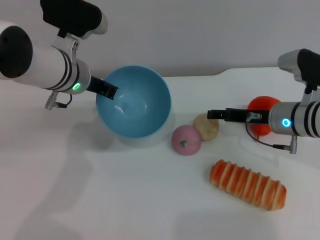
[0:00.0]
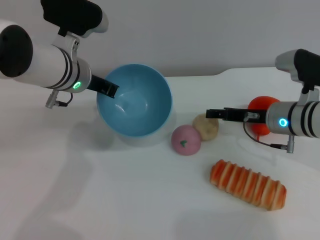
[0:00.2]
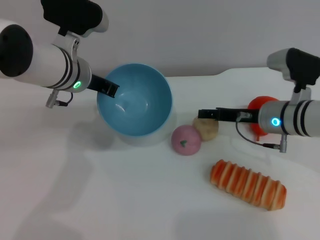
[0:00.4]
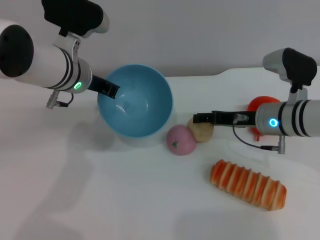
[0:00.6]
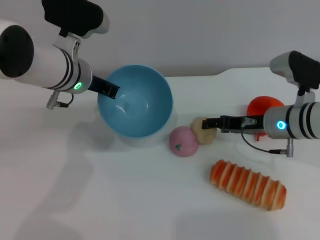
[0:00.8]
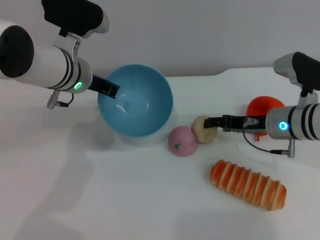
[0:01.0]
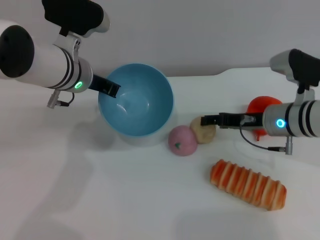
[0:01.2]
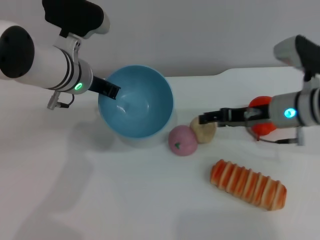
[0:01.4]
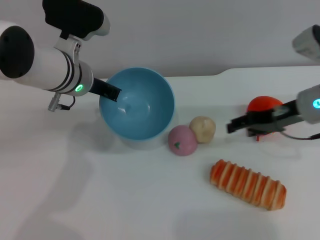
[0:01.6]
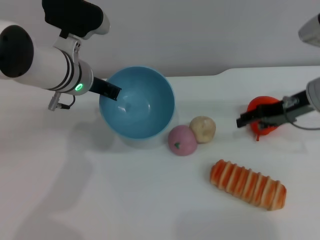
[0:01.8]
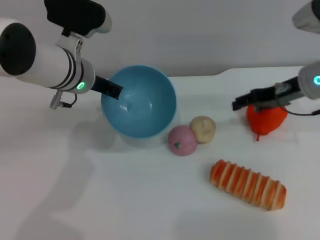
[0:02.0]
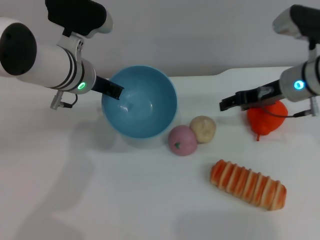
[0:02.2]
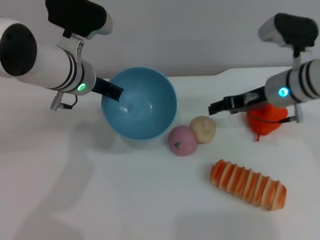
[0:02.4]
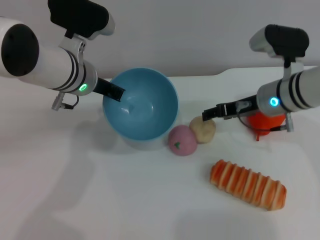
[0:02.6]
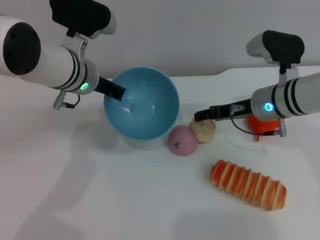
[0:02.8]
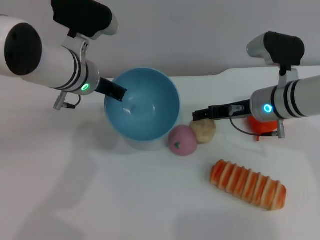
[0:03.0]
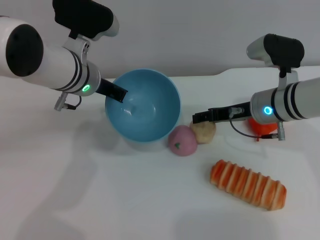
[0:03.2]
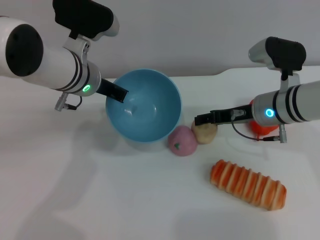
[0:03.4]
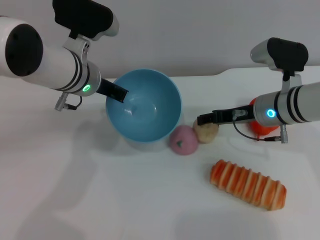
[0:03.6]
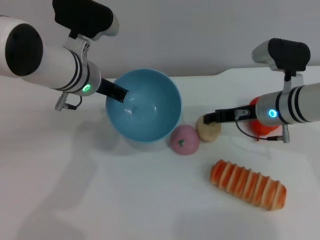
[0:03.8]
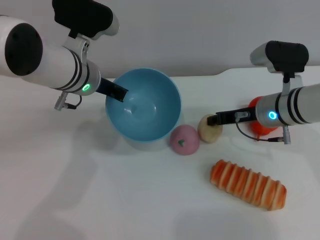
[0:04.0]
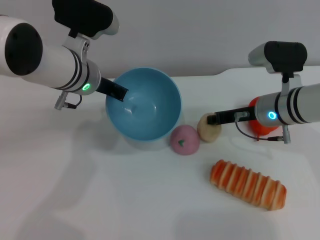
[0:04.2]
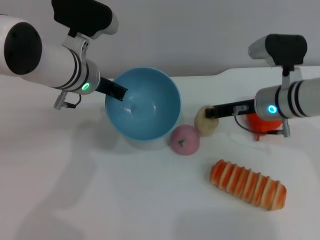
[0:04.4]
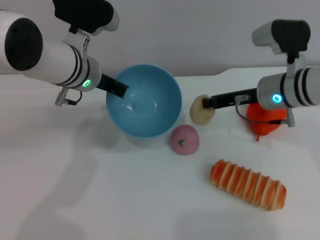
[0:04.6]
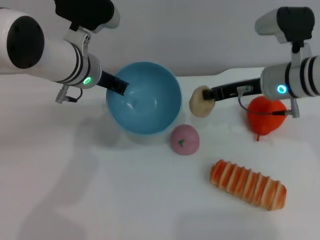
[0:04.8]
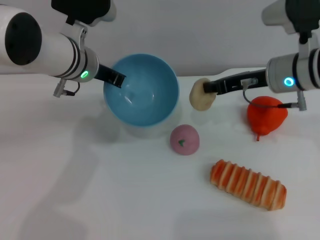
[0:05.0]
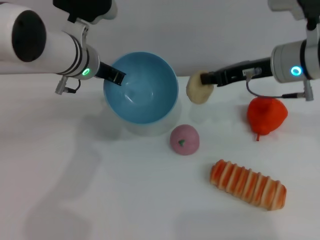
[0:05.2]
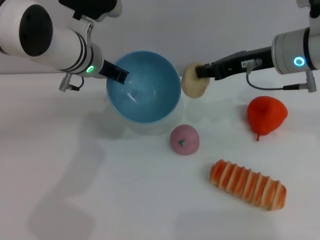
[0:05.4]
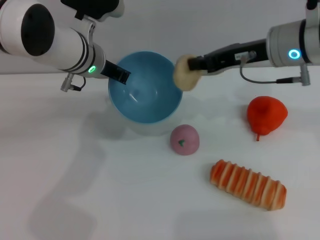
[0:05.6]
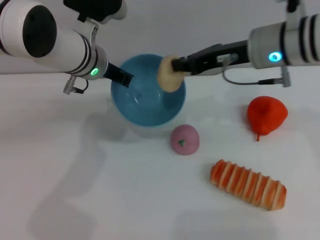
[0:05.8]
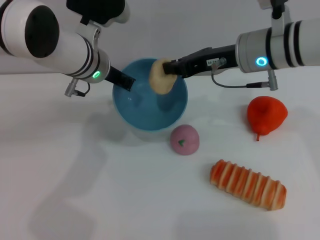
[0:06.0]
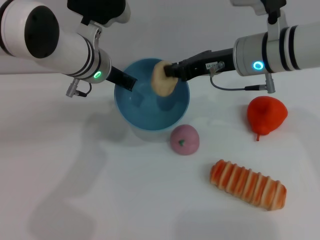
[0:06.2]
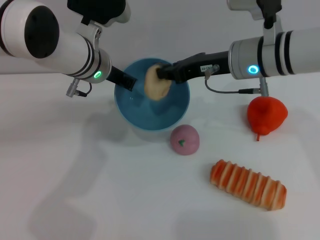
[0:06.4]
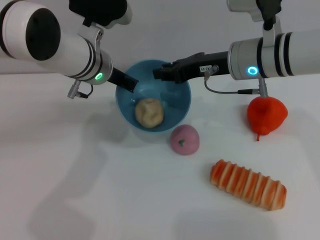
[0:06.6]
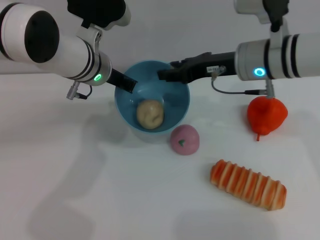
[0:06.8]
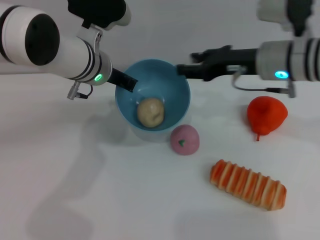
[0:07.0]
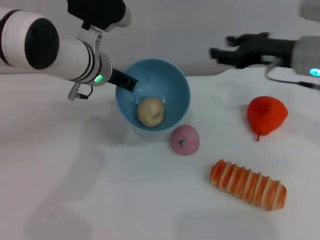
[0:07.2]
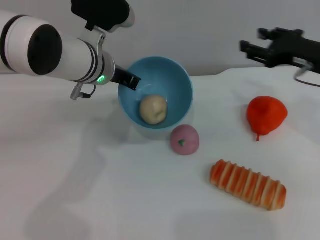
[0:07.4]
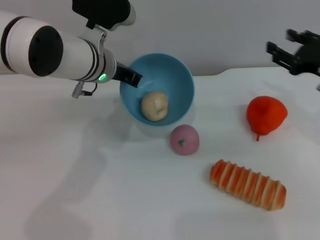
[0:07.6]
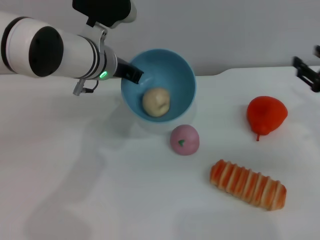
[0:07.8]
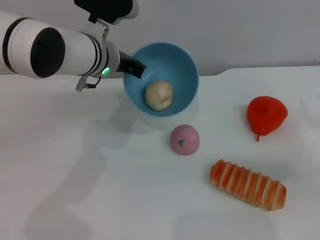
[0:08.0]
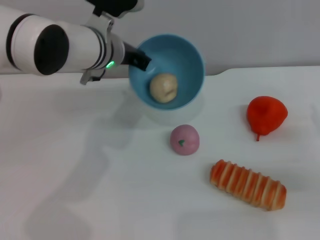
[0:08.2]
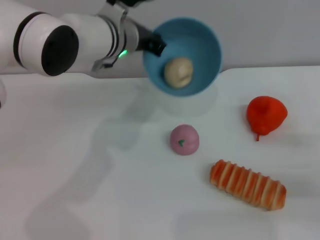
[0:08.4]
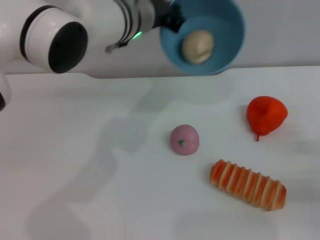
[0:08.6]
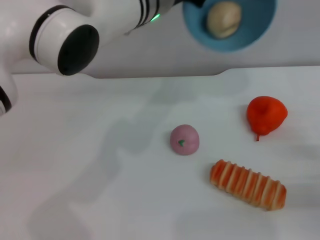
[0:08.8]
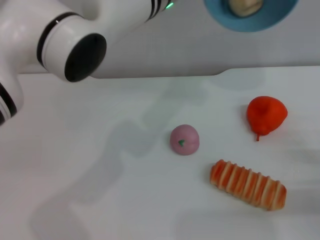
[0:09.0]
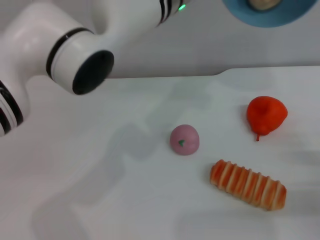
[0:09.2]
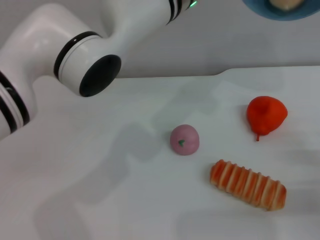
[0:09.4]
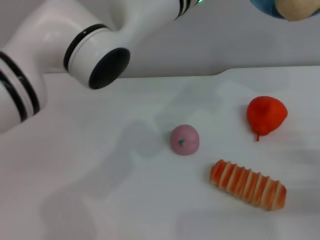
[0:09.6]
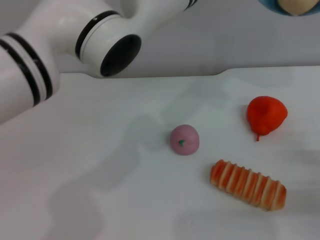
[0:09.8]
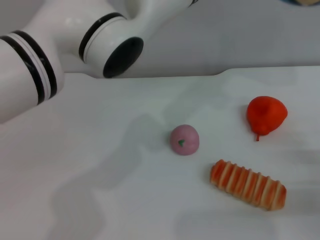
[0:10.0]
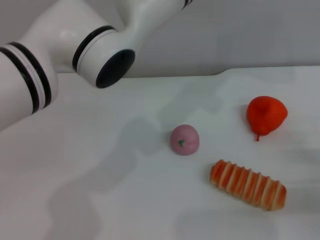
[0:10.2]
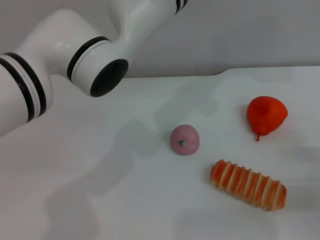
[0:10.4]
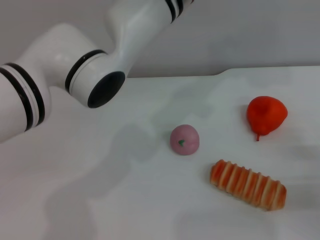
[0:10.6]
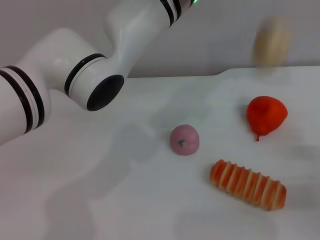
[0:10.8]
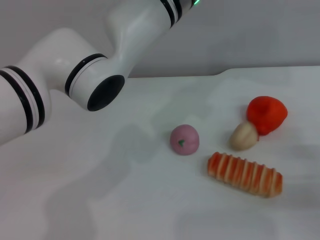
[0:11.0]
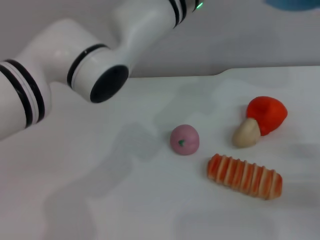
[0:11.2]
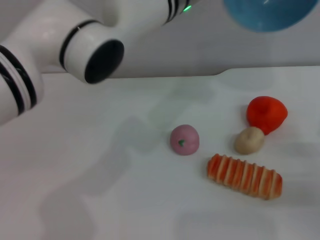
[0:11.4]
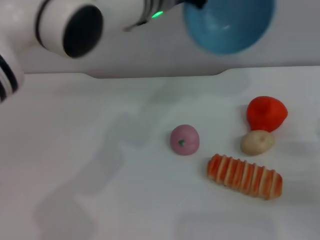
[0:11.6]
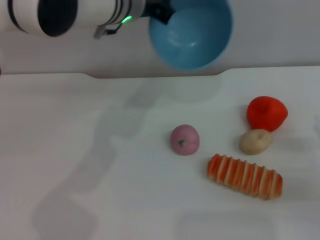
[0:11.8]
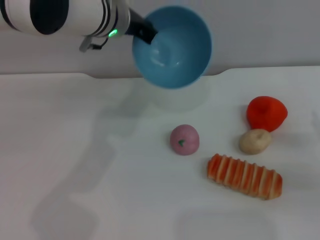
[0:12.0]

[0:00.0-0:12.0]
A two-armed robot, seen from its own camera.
Task of the whole recording: put the egg yolk pastry into the blue bowl and pour it out repeatedly.
Step, 0:00.0 to 0:04.8: Pick up the egg yolk pastry with the right gripper.
Step, 0:05.0 to 0:06.8: Place the egg yolk pastry into the bowl.
0:00.0 to 0:01.6: The right gripper moves upward, approximately 5 cm.
0:01.6 to 0:03.0: The right gripper heads to the left, covering about 5 cm.
0:03.0 to 0:04.4: The right gripper closes.
0:04.4 to 0:06.0: The right gripper travels upward by roughly 10 cm.
0:06.0 to 0:07.6: The right gripper is displaced to the right by about 15 cm, and opens up.
0:07.6 to 0:09.0: The left gripper moves upward and to the right, some 15 cm; the right gripper travels backward, downward and to the right by approximately 15 cm.
0:10.4 to 0:12.0: The left gripper travels to the left by some 10 cm.

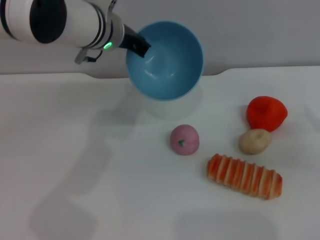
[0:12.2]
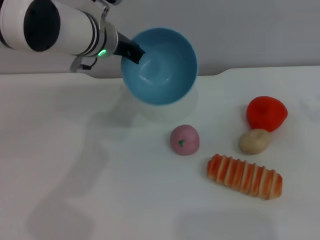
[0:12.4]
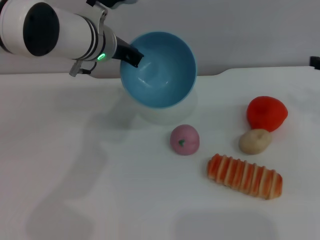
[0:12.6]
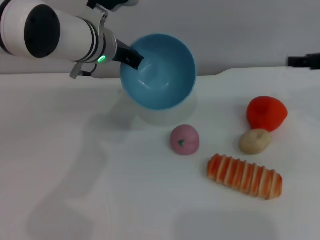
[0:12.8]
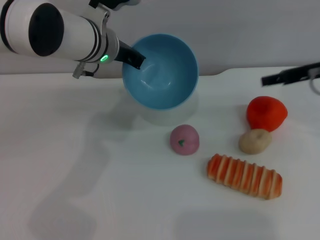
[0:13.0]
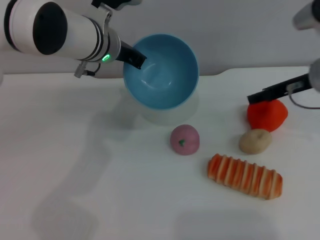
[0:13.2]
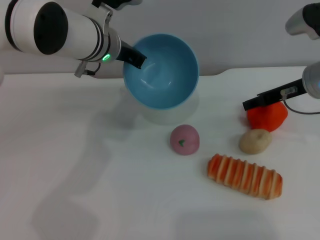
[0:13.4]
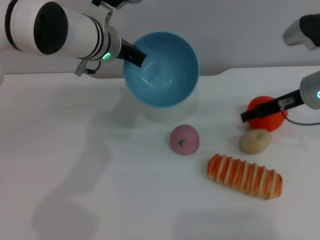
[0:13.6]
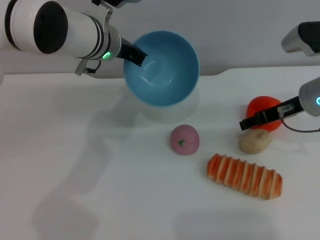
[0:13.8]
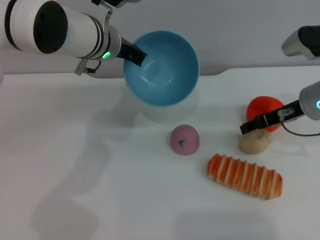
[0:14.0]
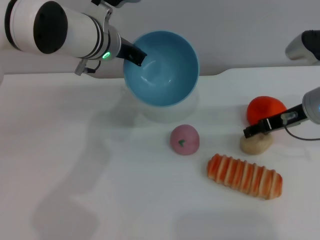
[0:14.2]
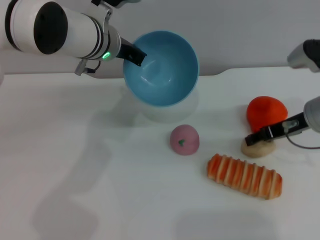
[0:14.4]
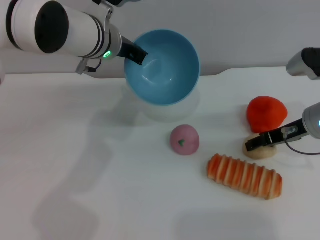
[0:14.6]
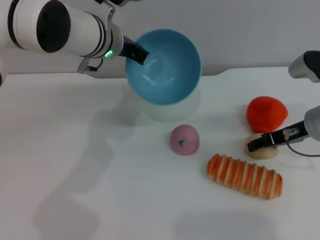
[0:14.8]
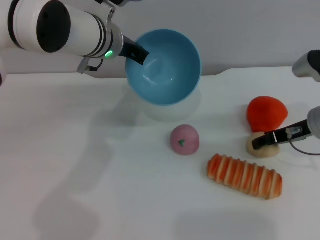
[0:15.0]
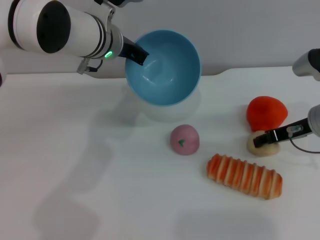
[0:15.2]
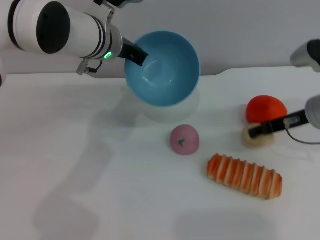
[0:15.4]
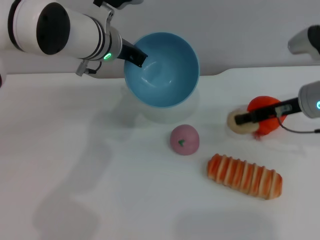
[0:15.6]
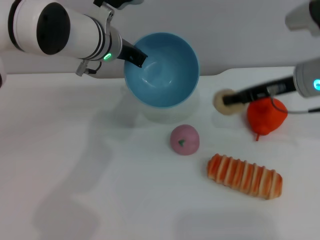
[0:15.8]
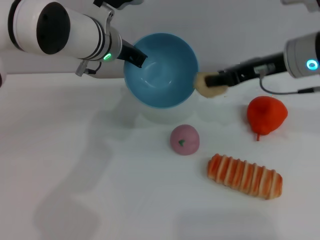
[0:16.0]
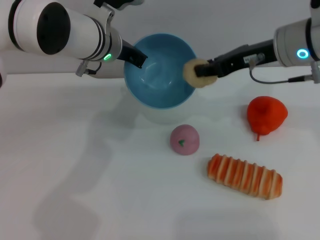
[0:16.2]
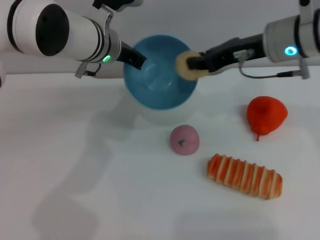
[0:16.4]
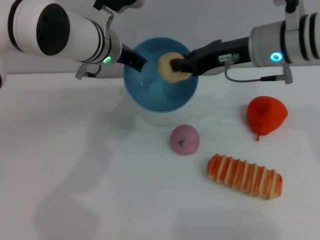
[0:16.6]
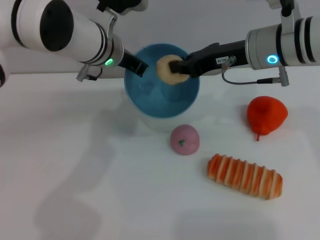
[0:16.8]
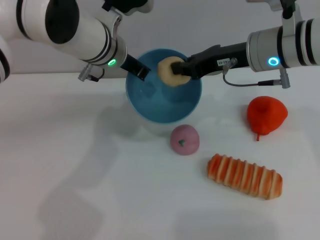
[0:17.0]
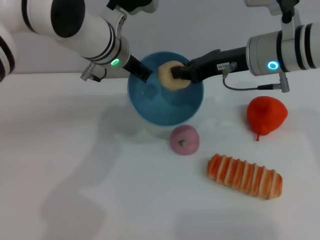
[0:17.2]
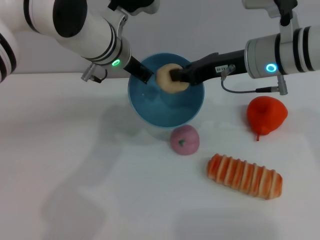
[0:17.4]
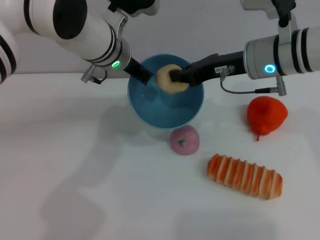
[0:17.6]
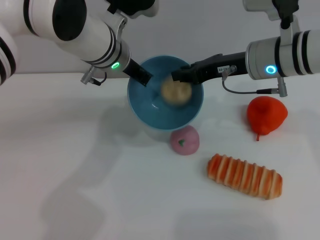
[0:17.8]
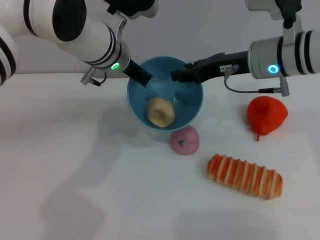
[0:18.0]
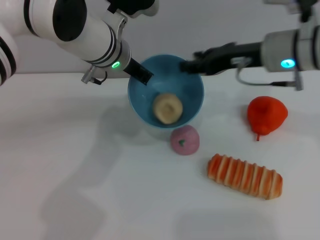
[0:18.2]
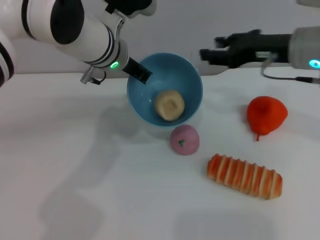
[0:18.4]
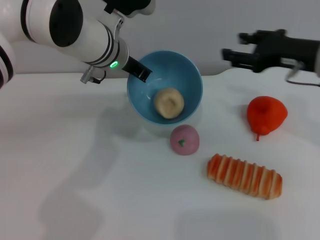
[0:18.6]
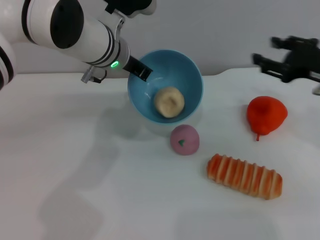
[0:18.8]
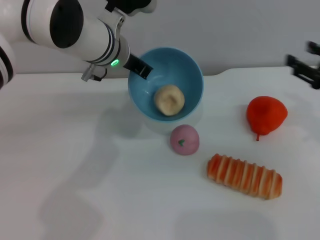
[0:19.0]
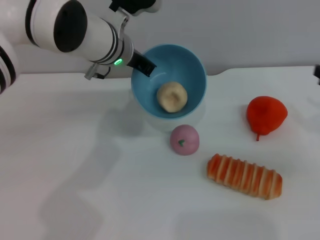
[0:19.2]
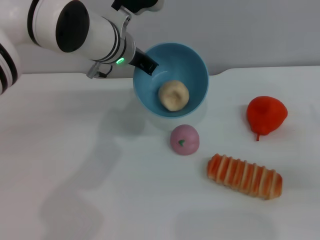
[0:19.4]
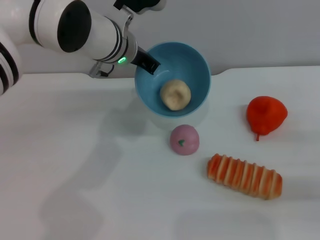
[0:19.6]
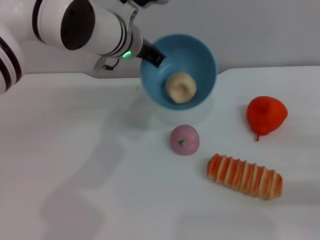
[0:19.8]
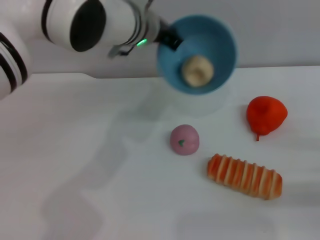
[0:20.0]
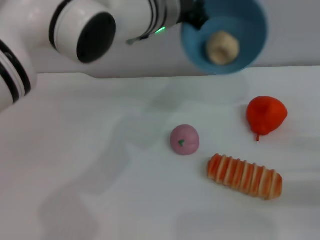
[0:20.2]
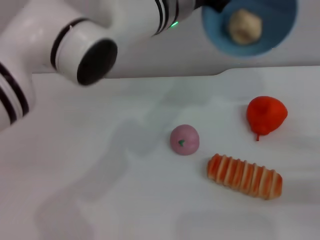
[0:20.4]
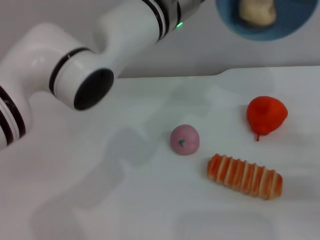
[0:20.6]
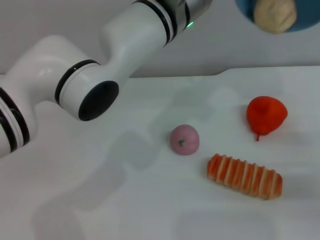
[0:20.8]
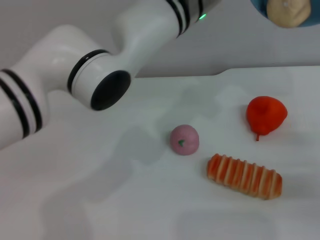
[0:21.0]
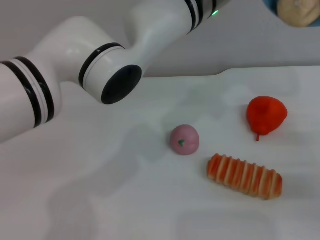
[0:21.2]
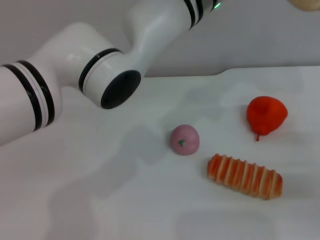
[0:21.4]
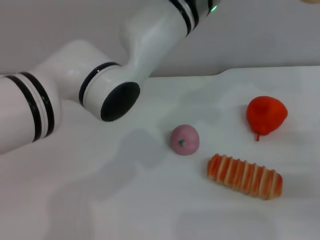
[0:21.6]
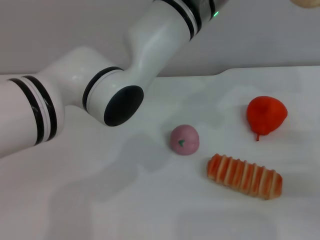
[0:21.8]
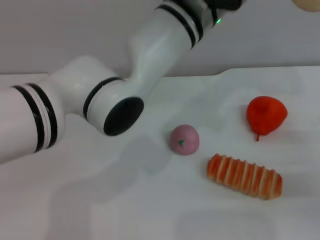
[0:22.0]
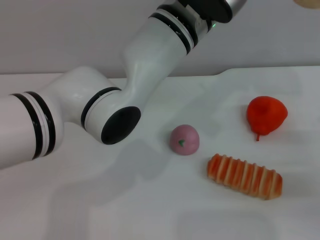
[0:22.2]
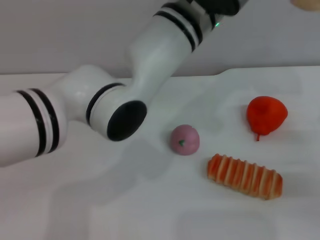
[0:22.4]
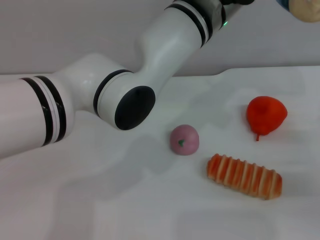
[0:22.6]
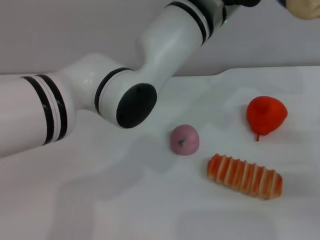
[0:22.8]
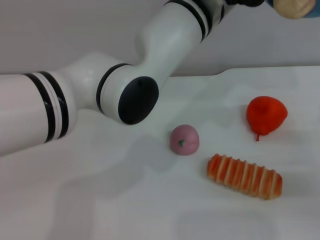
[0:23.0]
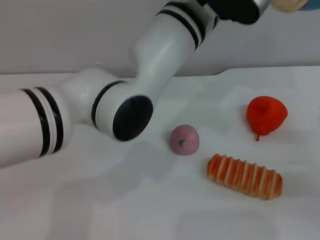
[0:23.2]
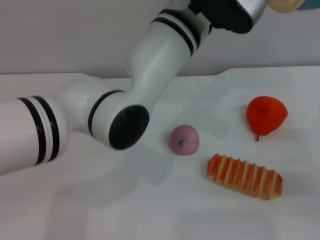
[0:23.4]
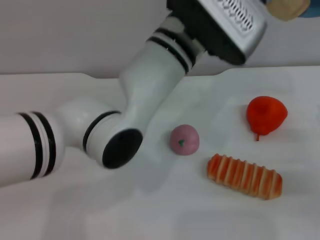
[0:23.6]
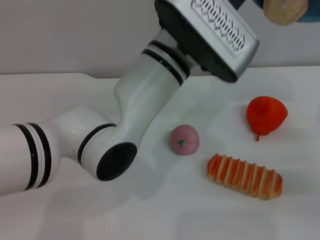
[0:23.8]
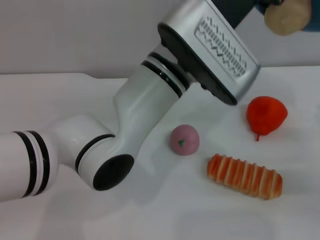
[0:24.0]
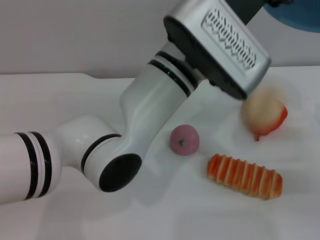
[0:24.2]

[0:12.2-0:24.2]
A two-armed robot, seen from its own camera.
Task of the whole recording: put the egg yolk pastry into the blue bowl and pour it out repeatedly.
Step, 0:12.2 to 0:15.6: Pick up the egg yolk pastry with the right gripper.
Step, 0:15.8 to 0:19.0: Place the egg yolk pastry into the bowl.
0:12.2 to 0:13.8: The right gripper heads to the left and forward, covering about 15 cm.
0:13.8 to 0:15.2: There are only small adjustments of the grippers.
0:15.2 to 0:16.6: The right gripper is displaced to the left and upward by roughly 15 cm, and closes its fingers.
0:16.6 to 0:18.2: The right gripper opens up.
0:18.2 to 0:19.8: The right gripper heads to the right, backward and downward, covering roughly 30 cm.
0:19.8 to 0:21.2: The left gripper moves to the right and upward, some 10 cm.
0:21.2 to 0:22.6: There are only small adjustments of the grippers.
0:22.6 to 0:24.2: The left gripper moves backward, some 5 cm.
